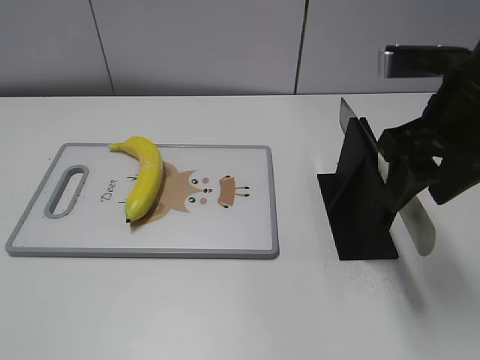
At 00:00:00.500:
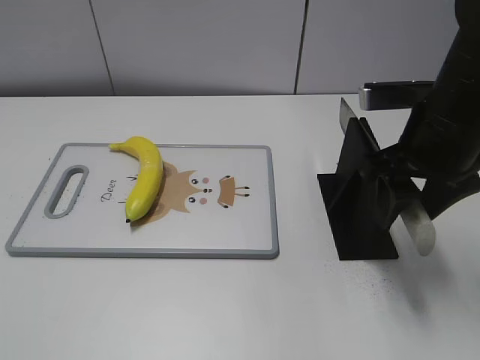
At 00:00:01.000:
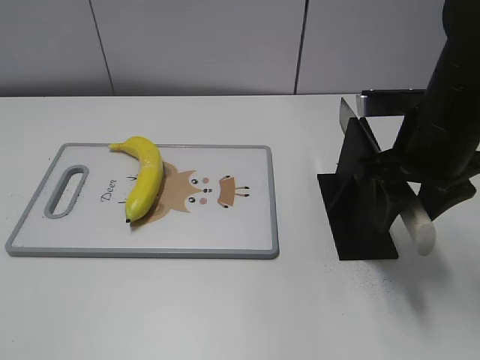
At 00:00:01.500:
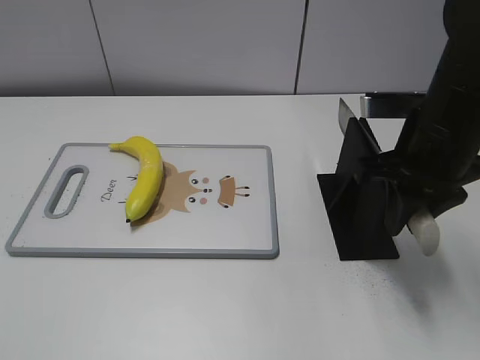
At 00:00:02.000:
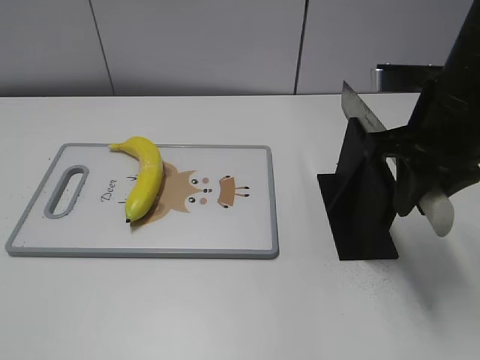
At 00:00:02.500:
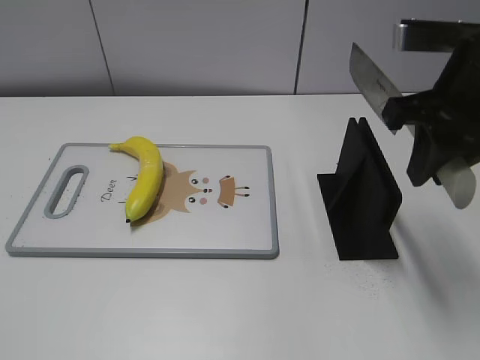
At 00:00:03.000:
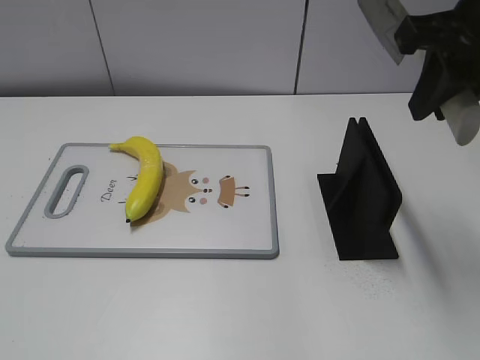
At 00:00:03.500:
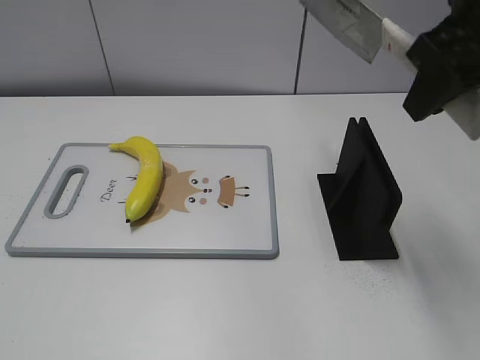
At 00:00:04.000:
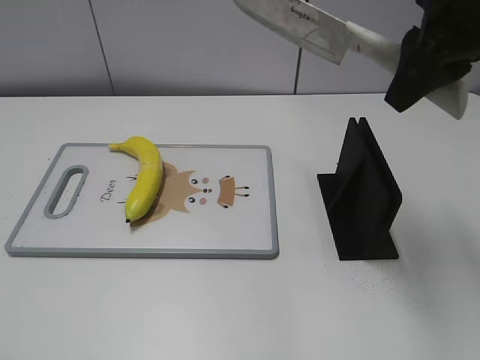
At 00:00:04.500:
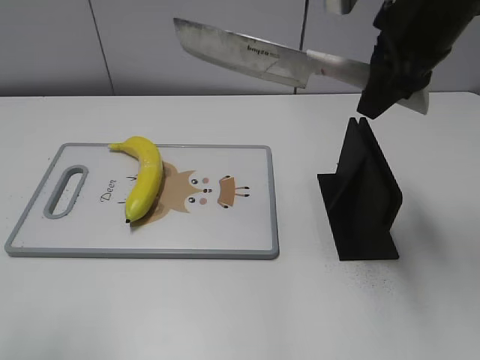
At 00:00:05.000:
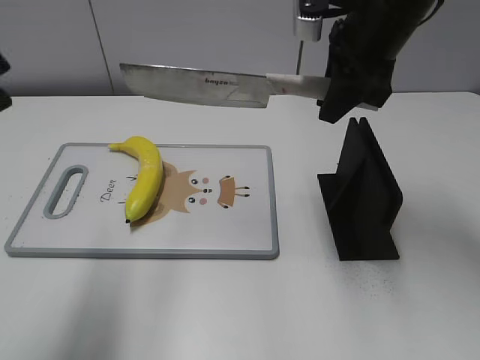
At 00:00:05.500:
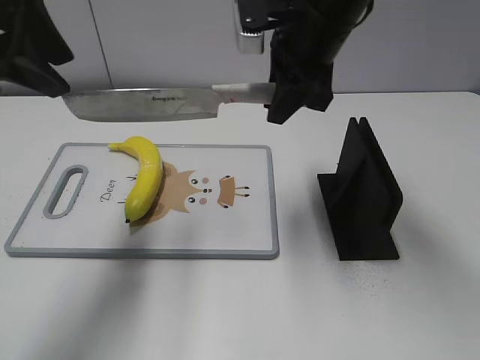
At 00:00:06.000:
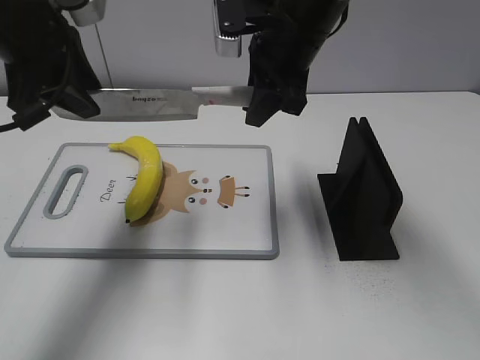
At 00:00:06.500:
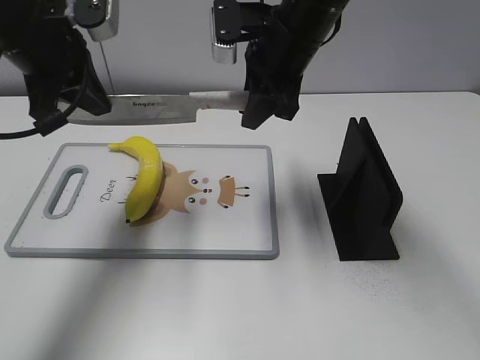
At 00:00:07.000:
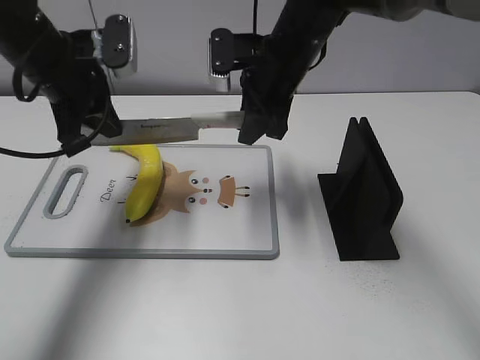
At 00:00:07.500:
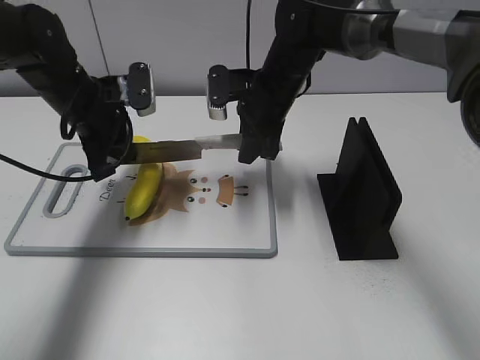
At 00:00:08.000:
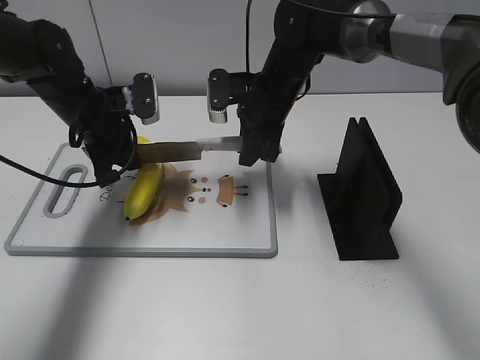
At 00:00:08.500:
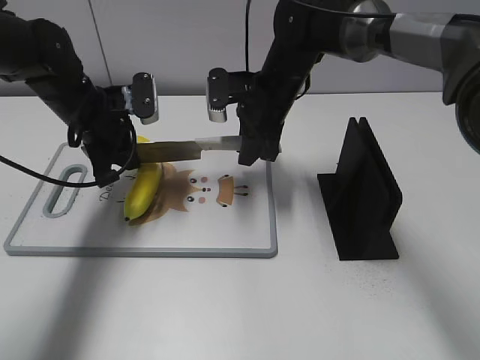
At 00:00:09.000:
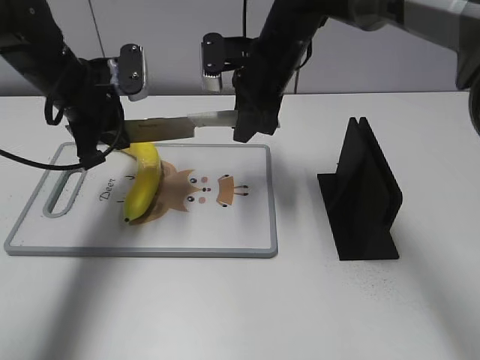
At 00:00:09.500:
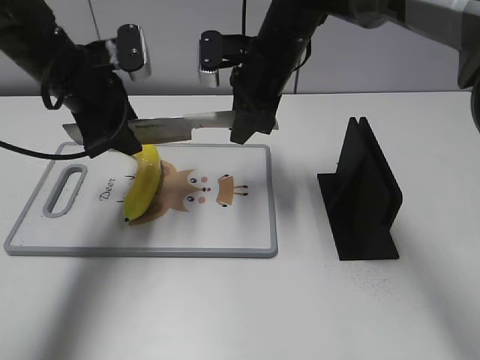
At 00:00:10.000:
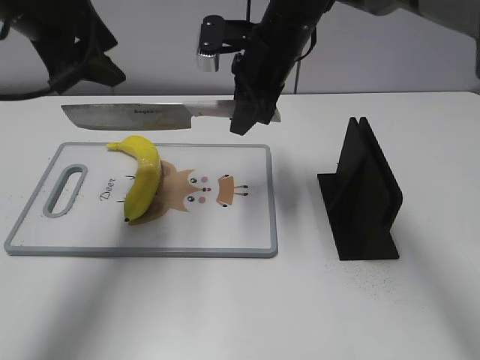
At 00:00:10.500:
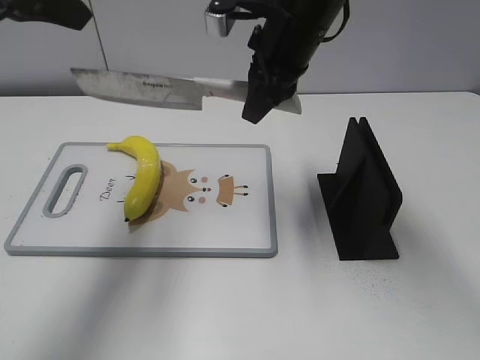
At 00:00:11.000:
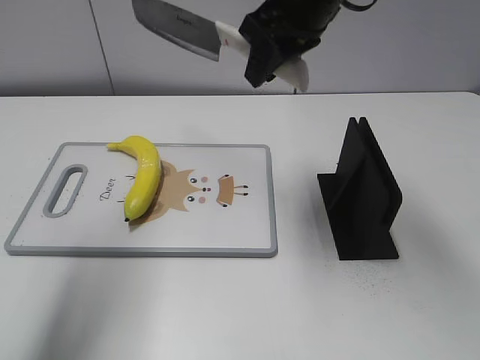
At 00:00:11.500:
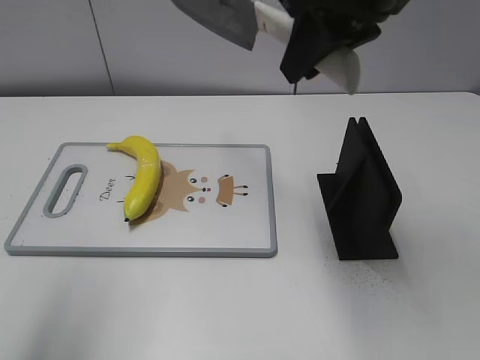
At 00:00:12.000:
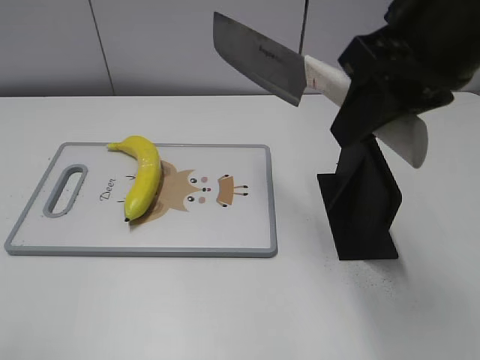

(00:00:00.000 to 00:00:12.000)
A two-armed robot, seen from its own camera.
Task of the whole recording: cut plastic banana.
Step, 00:00:00.000 - 00:00:03.500: Grab the knife handle with your right hand.
Step, 00:00:04.500 - 00:00:09.500: Lift the knife with your right hand.
Step, 00:00:10.000 - 00:00:11.000: Cut the banana with your right hand.
00:00:00.000 - 00:00:02.000: The right gripper closes.
00:00:02.000 - 00:00:04.000: The right gripper is displaced upward by approximately 10 cm.
00:00:04.000 - 00:00:06.000: The left gripper heads forward, covering about 30 cm. Meanwhile the right gripper heads to the left, forward and downward, covering roughly 15 cm.
00:00:06.000 - 00:00:08.000: The right gripper travels downward by approximately 10 cm, while the left gripper heads downward and forward, covering approximately 20 cm, and closes its fingers.
00:00:08.000 - 00:00:10.000: The left gripper moves upward, roughly 15 cm, and opens its fingers; the right gripper shifts approximately 5 cm upward.
00:00:10.000 - 00:00:12.000: The left gripper travels backward by roughly 25 cm. Meanwhile the right gripper goes approximately 25 cm backward, upward and to the right.

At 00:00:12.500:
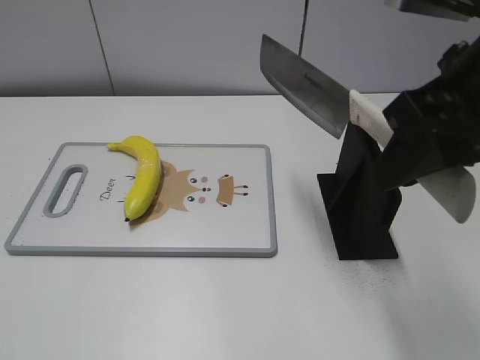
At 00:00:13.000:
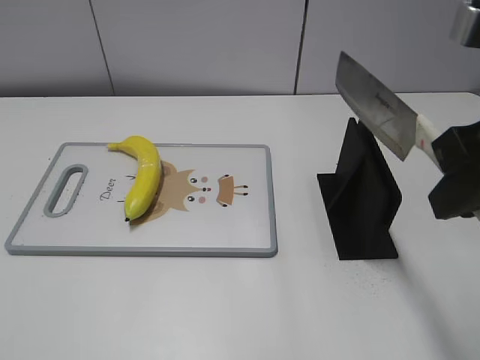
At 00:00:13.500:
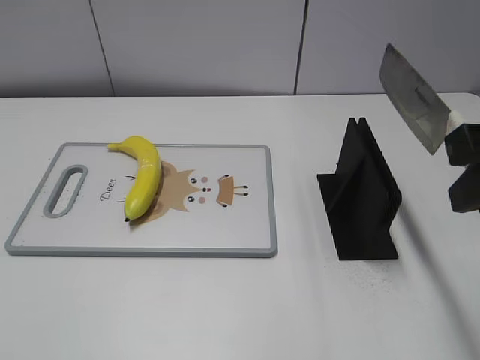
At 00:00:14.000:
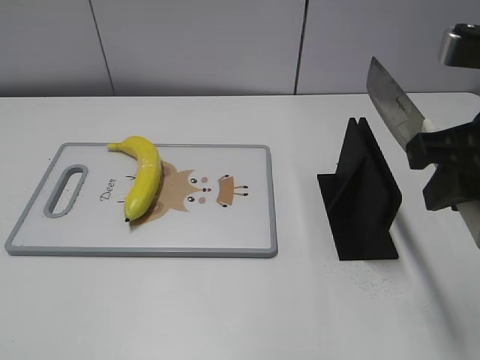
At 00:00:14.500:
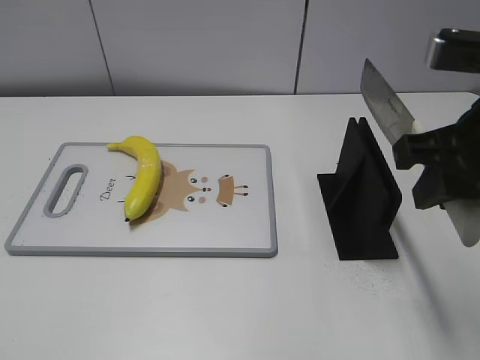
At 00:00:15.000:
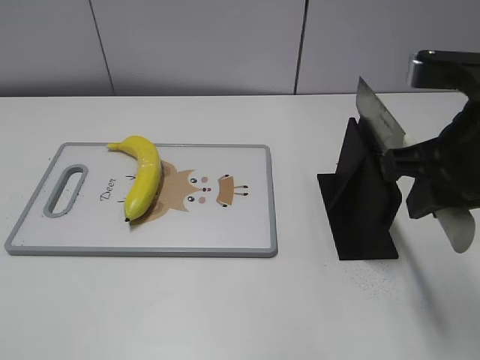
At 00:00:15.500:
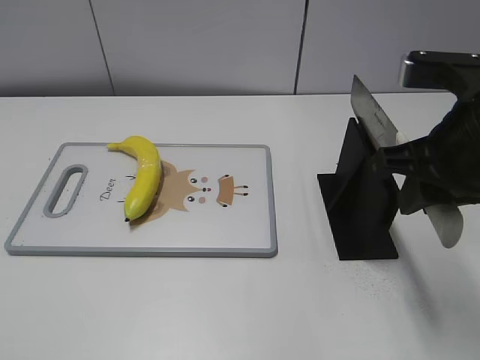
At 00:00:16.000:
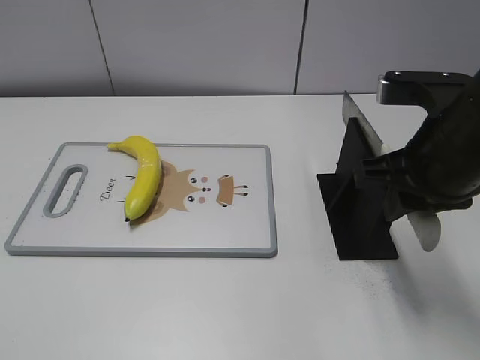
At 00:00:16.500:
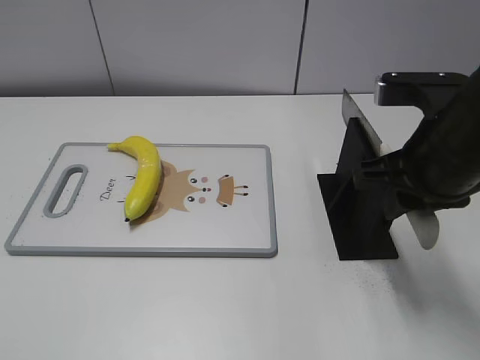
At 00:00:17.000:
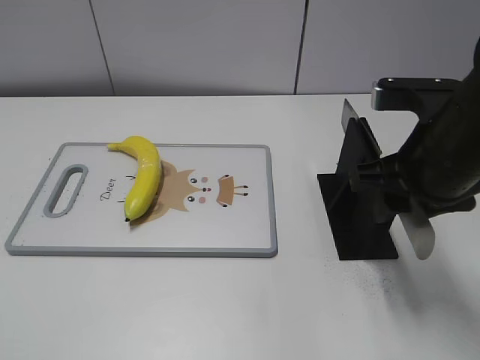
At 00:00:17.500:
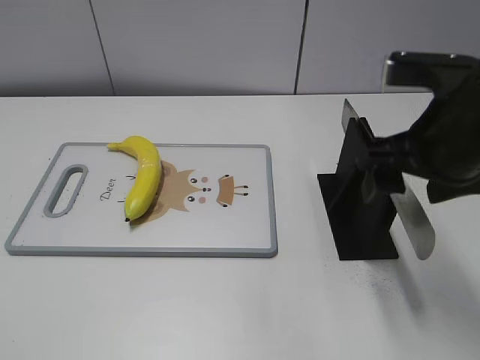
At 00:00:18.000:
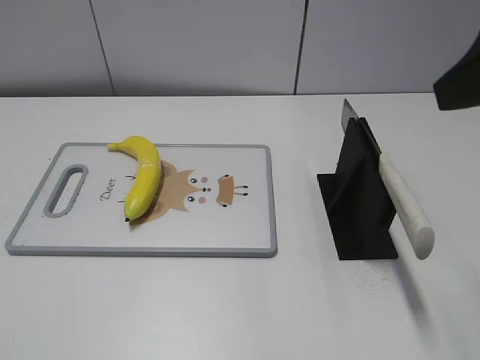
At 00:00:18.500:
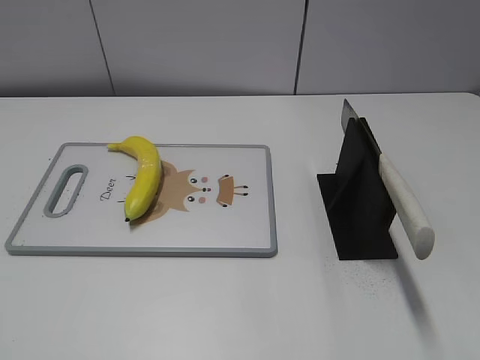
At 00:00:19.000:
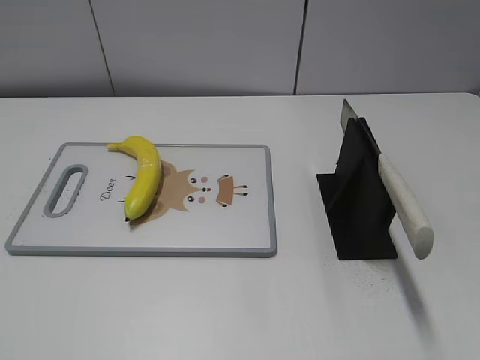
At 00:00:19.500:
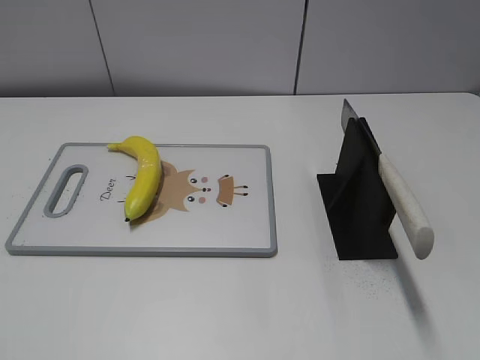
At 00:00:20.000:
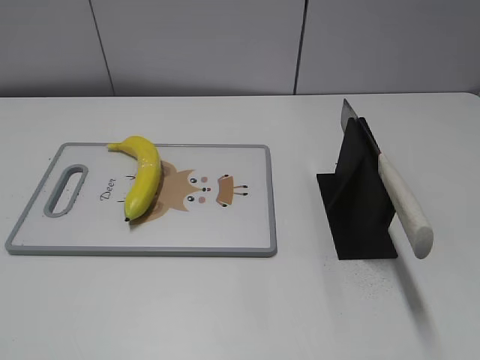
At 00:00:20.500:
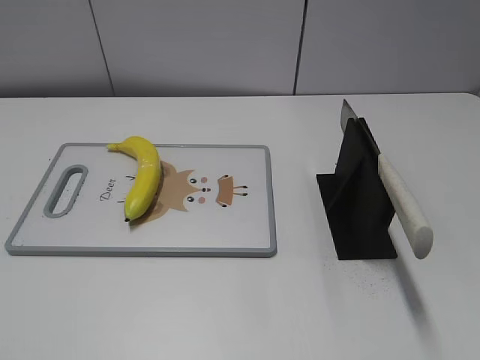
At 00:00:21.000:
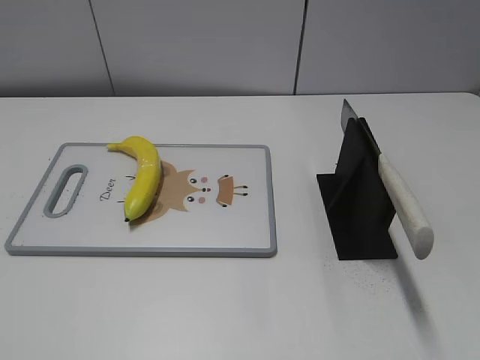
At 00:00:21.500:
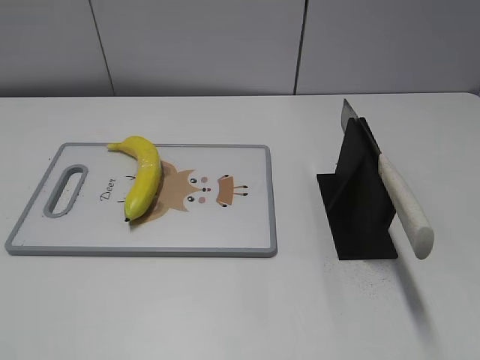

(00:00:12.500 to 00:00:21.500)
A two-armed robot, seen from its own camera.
Task of the whole recording: cut plastic banana.
Step, 00:00:14.000 - 00:00:21.500: Place the knife on the storage rack with your right hand.
00:00:12.500 - 00:00:14.500: The right gripper changes place by roughly 5 cm.
00:00:14.500 - 00:00:17.000: The right gripper moves downward, roughly 5 cm, and opens up.
00:00:17.000 - 00:00:19.500: The right gripper moves backward and to the right, about 25 cm, and opens.
